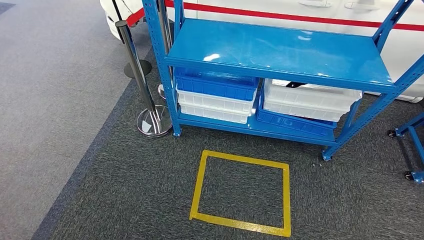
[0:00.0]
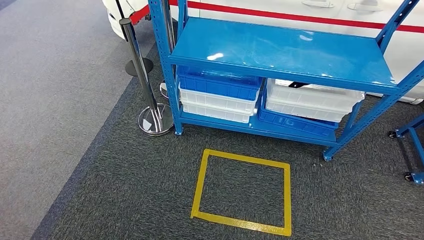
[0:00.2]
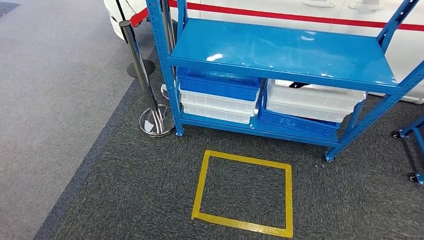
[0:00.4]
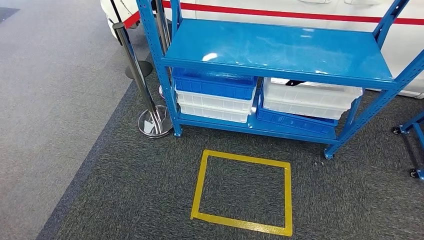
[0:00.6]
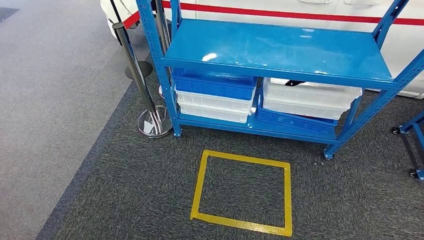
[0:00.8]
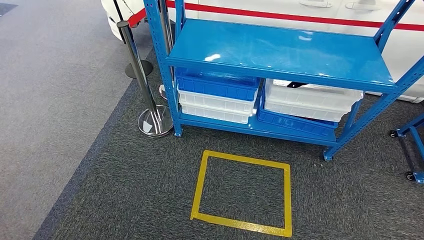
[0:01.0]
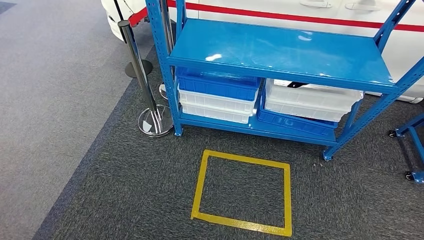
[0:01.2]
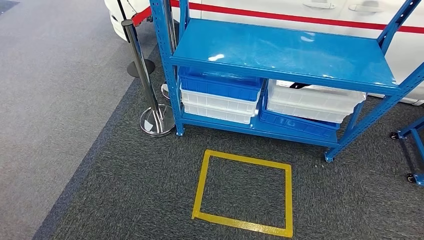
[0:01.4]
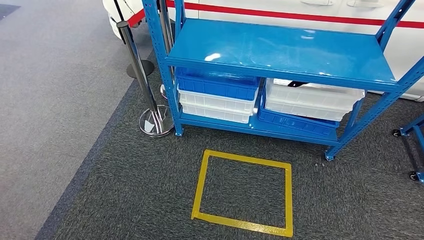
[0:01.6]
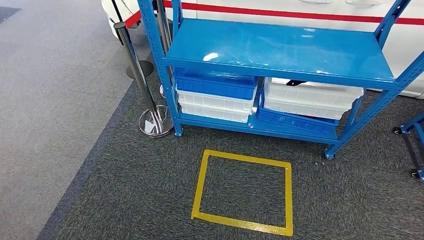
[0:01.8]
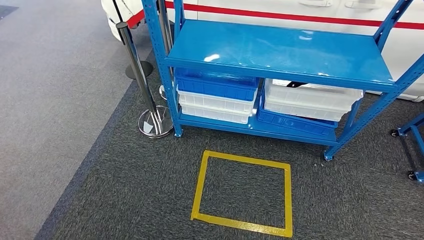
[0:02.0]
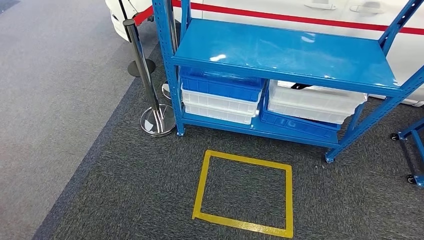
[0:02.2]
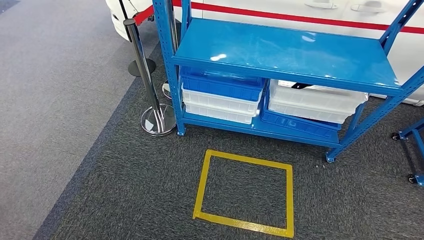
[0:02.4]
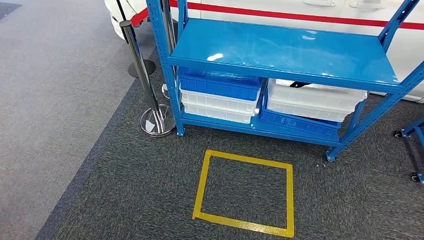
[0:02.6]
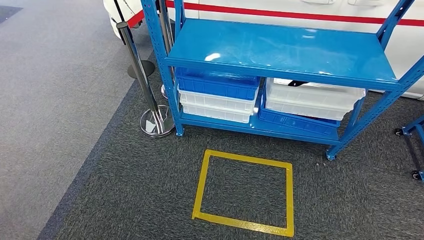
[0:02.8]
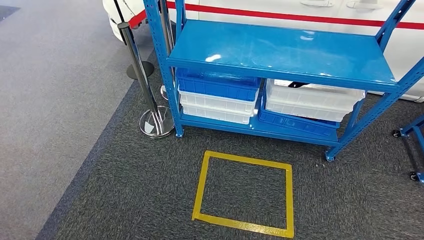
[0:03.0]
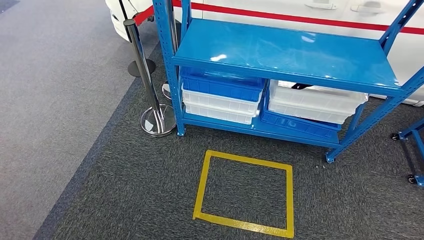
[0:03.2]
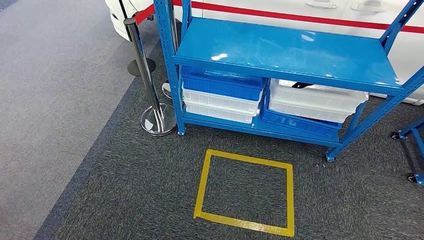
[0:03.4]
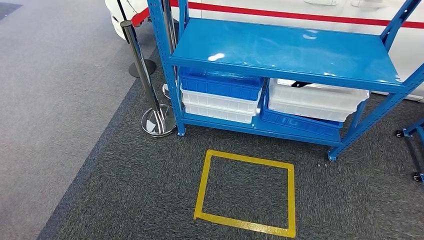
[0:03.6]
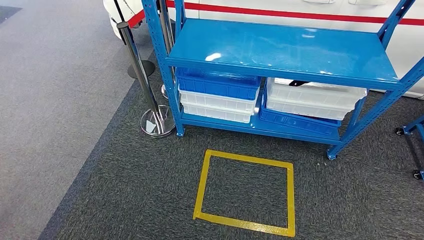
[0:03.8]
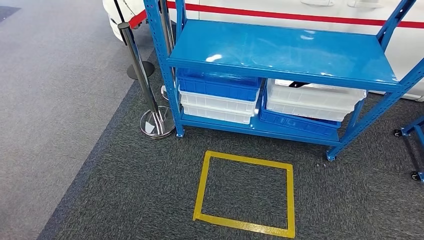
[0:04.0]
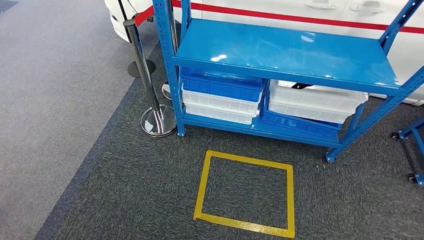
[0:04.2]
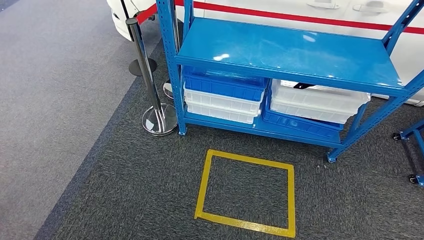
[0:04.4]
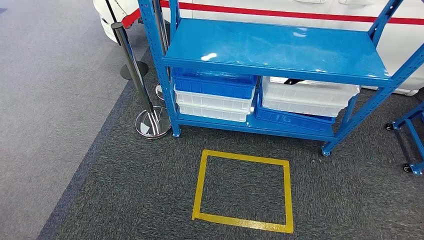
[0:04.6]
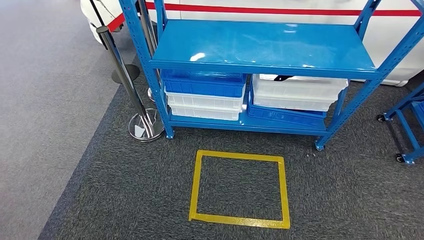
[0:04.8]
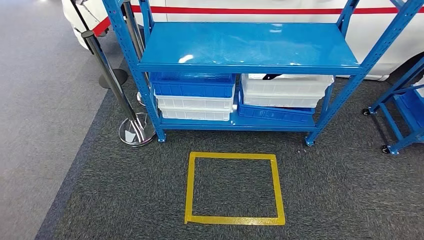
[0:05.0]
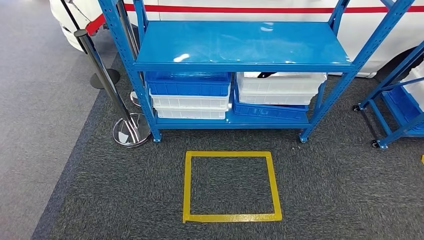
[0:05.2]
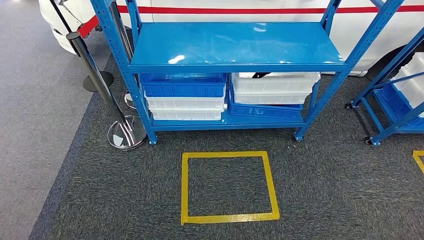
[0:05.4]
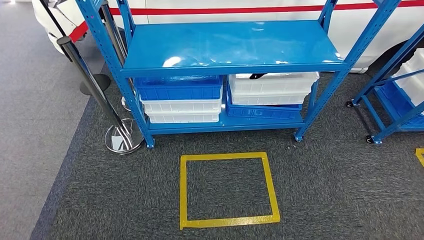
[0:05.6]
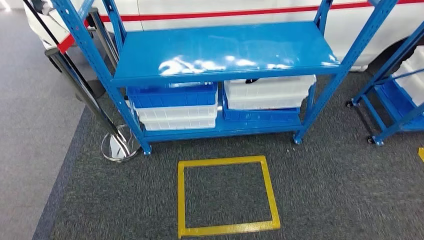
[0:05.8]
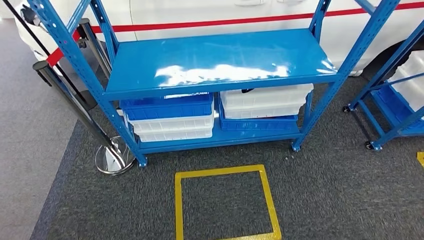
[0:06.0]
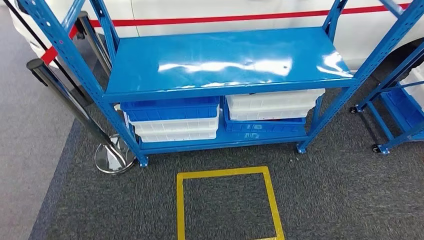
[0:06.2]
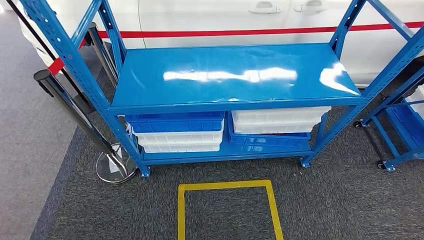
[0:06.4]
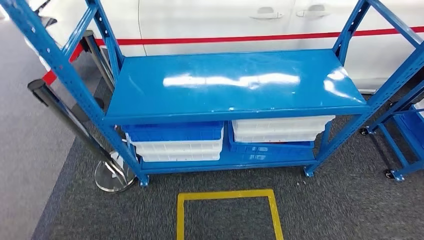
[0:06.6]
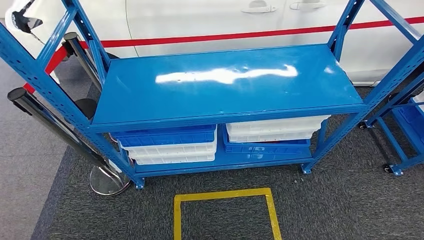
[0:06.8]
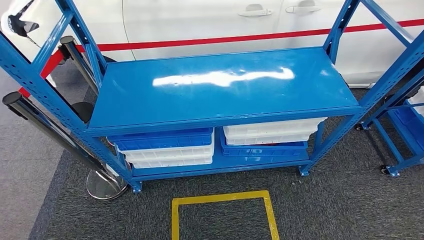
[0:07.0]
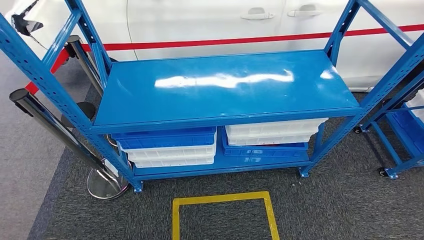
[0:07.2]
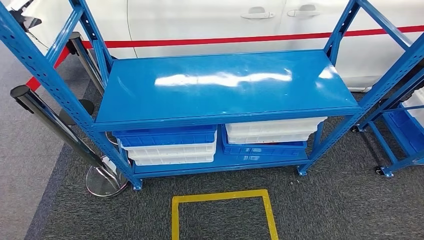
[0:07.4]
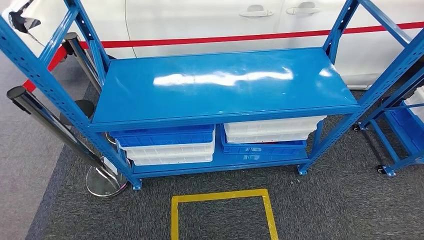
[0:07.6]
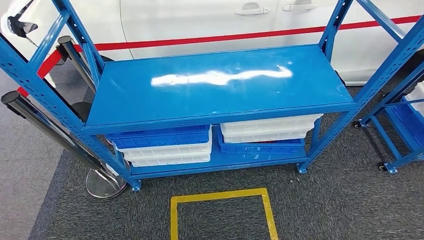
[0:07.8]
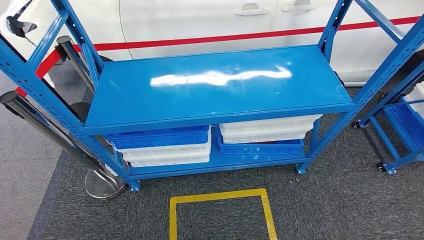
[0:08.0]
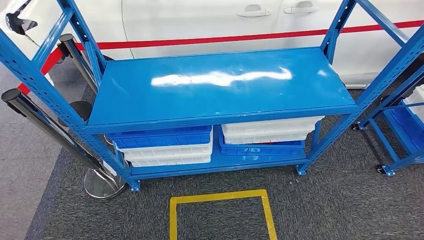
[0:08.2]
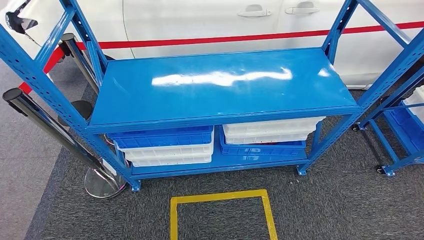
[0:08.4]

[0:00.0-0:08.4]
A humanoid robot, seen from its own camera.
Step, 0:00.0 to 0:08.4: Move to the initial position of the shelf.
0:00.0 to 0:01.4: Both hands stay about where they are.
0:07.0 to 0:08.4: The hands make only small movements.
